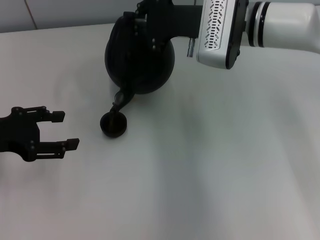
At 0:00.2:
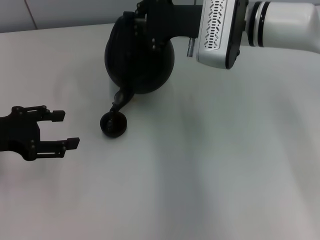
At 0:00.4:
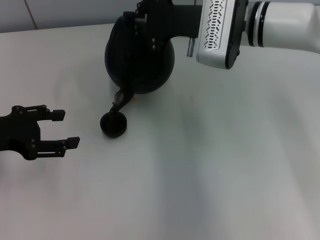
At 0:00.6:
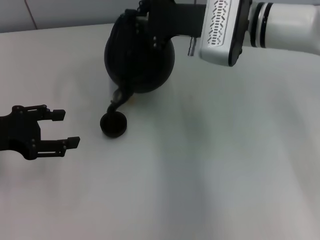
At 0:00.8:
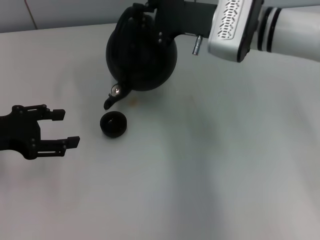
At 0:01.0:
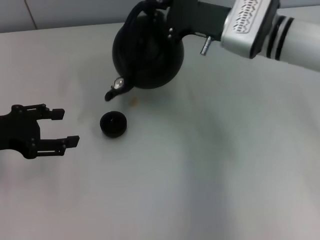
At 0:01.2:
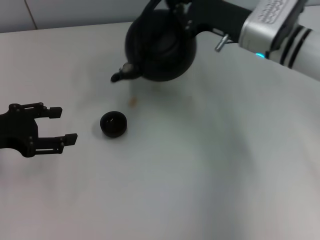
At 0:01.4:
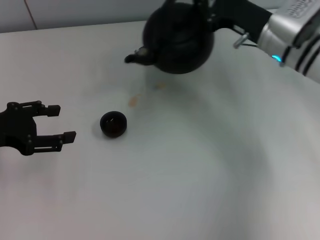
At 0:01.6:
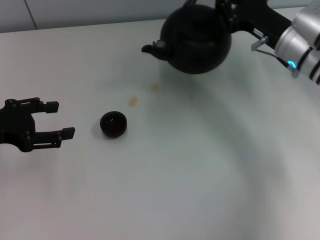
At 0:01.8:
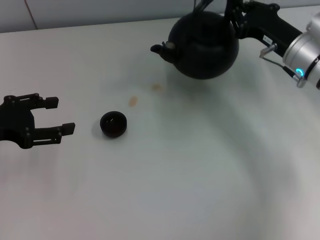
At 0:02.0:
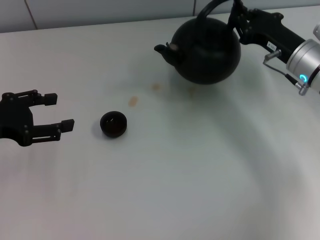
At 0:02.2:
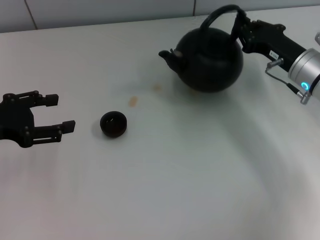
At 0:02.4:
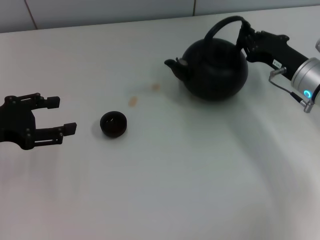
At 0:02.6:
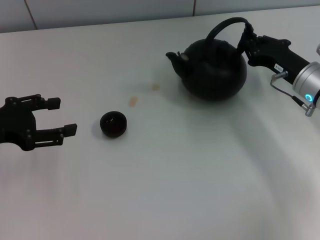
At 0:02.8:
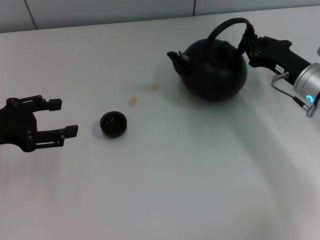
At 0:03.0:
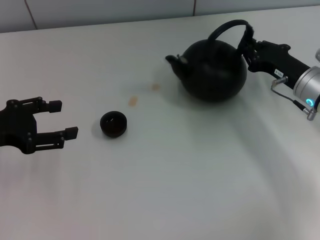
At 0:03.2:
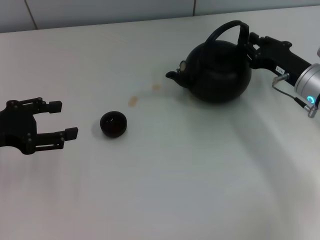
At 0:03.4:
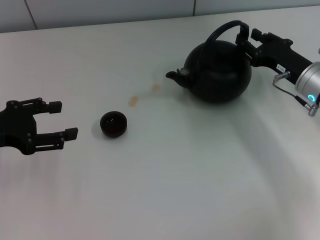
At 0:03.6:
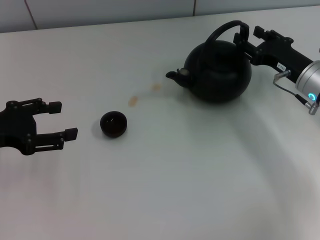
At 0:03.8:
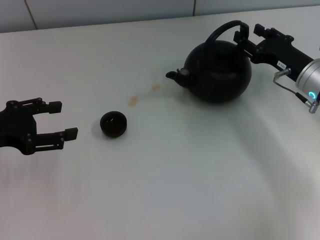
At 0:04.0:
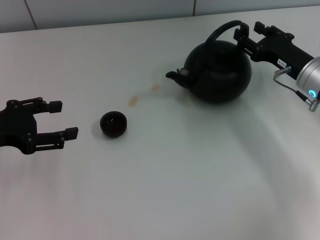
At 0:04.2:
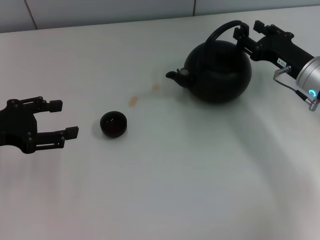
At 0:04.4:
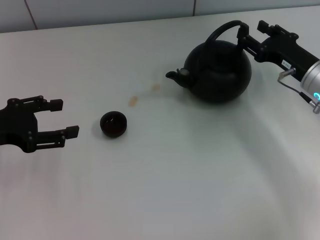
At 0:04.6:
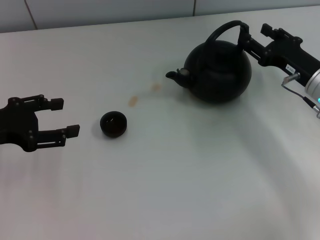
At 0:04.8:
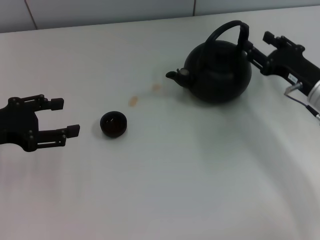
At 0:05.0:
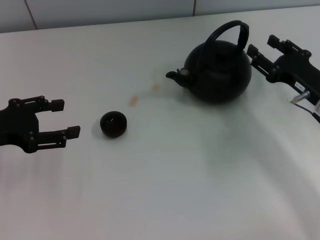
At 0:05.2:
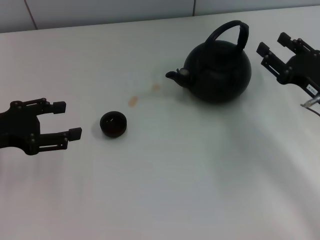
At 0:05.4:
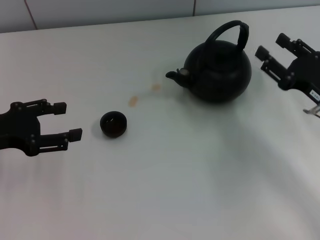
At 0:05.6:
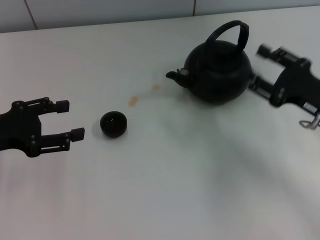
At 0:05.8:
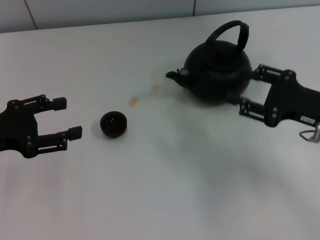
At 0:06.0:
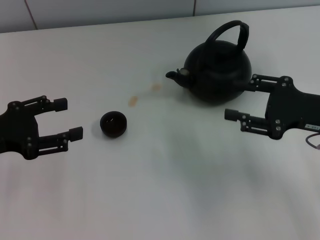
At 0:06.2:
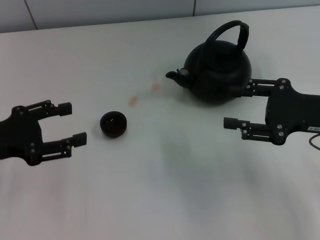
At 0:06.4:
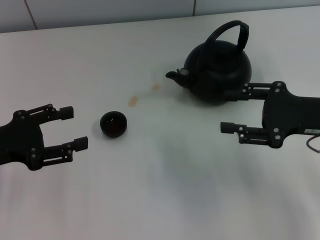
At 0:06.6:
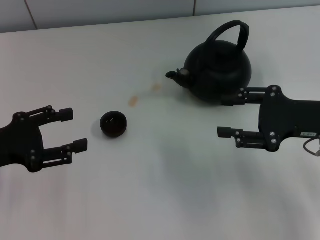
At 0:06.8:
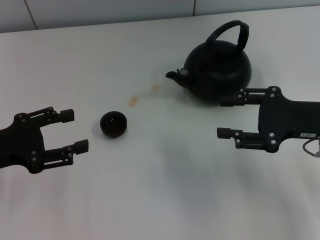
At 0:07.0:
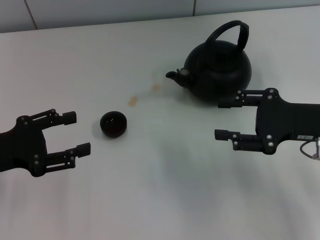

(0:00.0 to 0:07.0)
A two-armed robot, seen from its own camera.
Task of the whole recording: Grasp the handle of the teapot with one hand and pour tea into the teacup.
Step, 0:01.2 - 0:03.6: Put down the teapot with the right gripper.
0:00.0 - 0:01.4: The right gripper shifts roughly 10 cm to the right.
0:01.4 - 0:02.8: The right gripper shifts some 10 cm downward and to the right.
0:02.8 - 0:04.2: The right gripper opens its fingers.
0:04.2 - 0:05.6: The right gripper goes roughly 10 cm backward.
